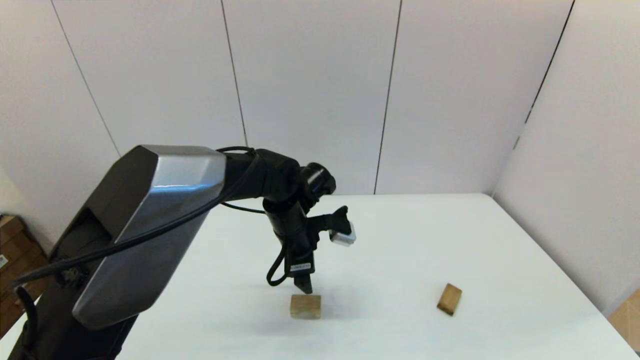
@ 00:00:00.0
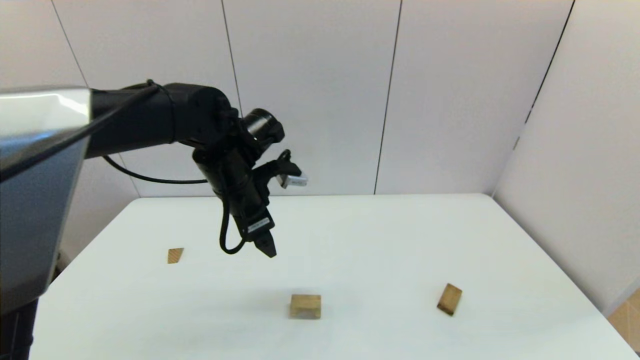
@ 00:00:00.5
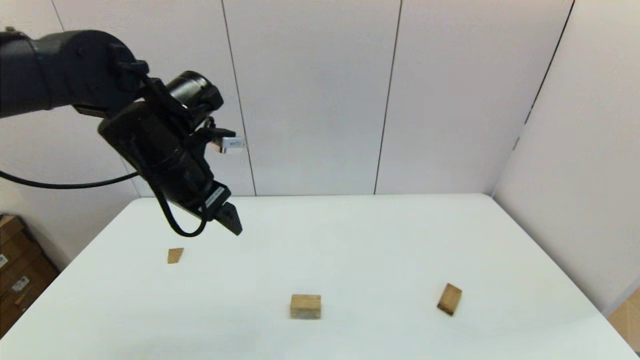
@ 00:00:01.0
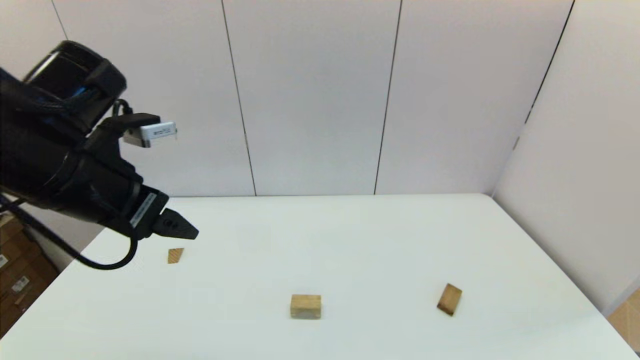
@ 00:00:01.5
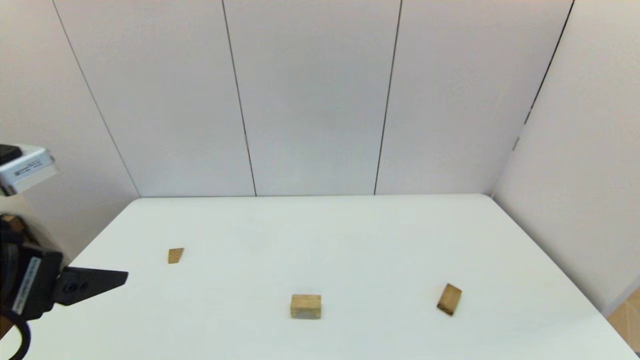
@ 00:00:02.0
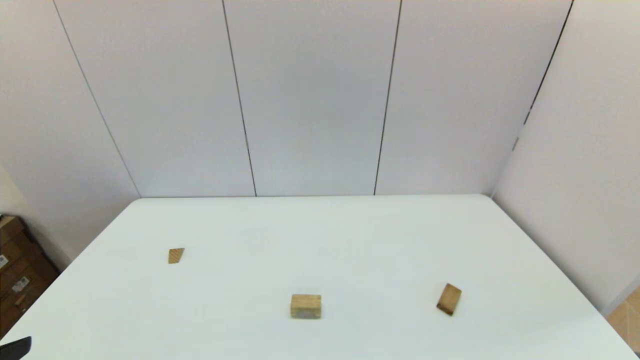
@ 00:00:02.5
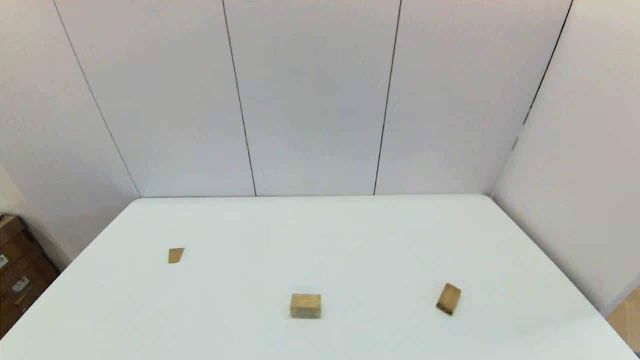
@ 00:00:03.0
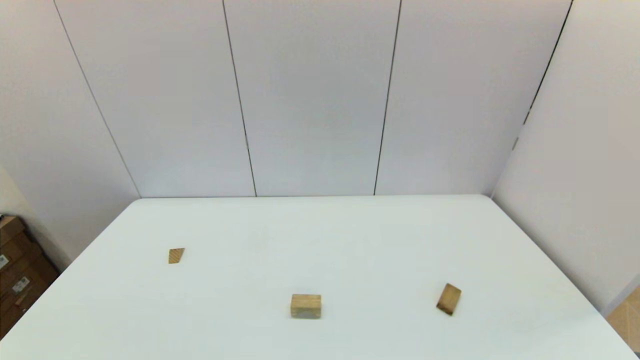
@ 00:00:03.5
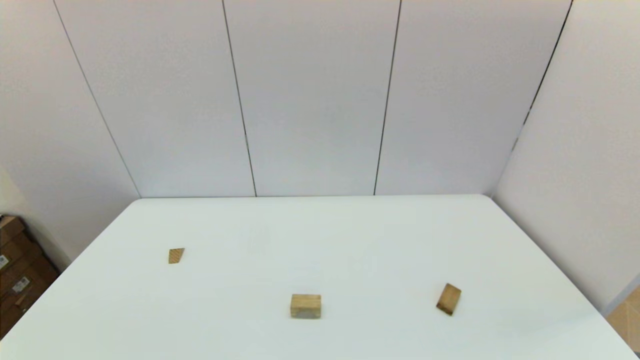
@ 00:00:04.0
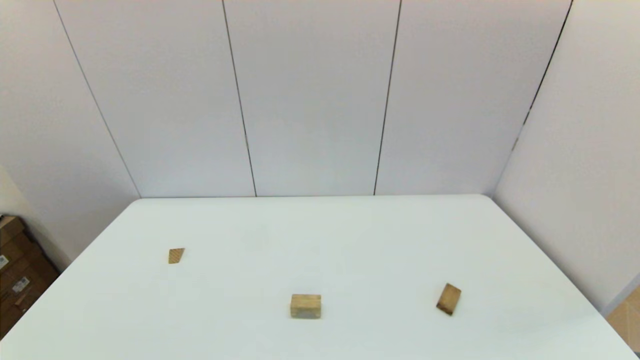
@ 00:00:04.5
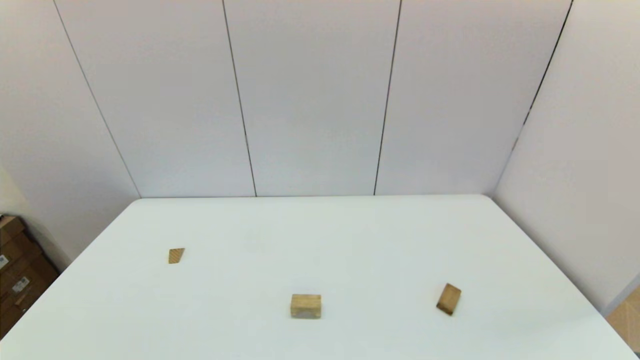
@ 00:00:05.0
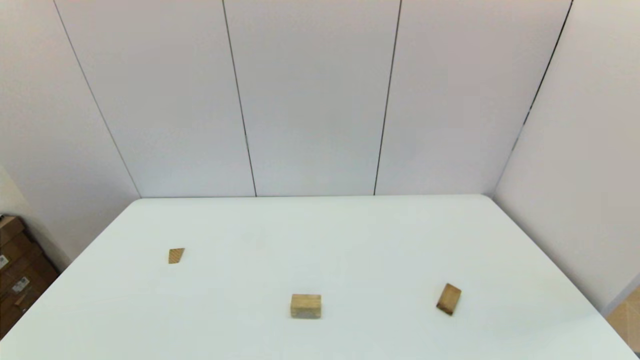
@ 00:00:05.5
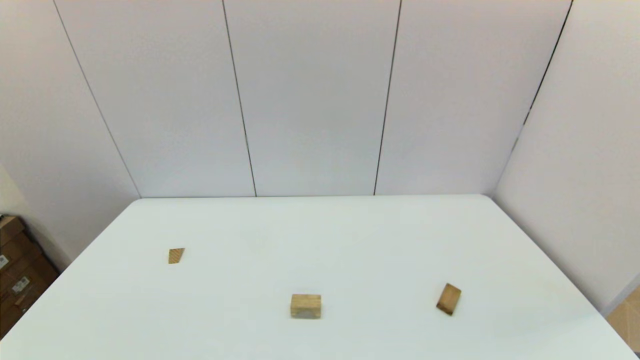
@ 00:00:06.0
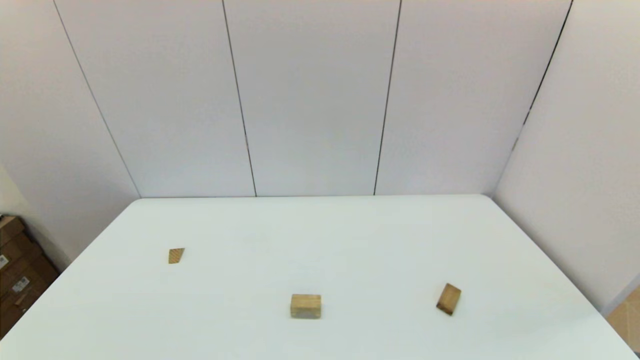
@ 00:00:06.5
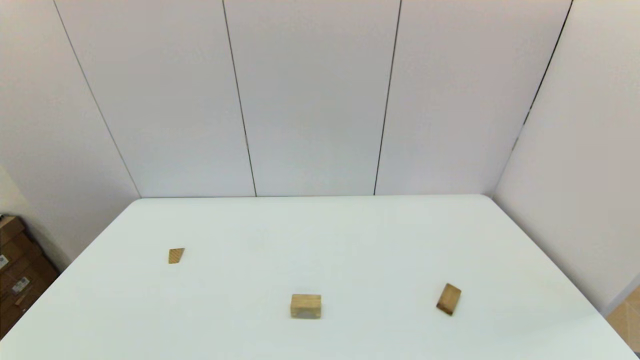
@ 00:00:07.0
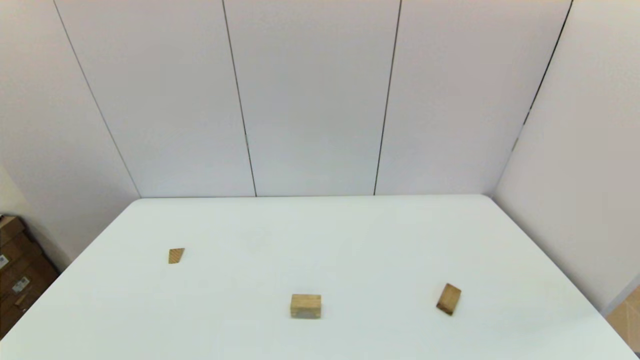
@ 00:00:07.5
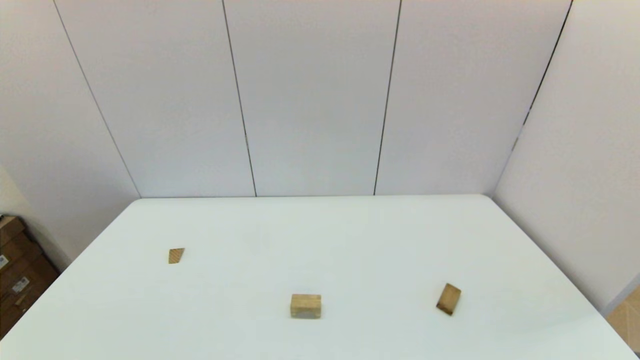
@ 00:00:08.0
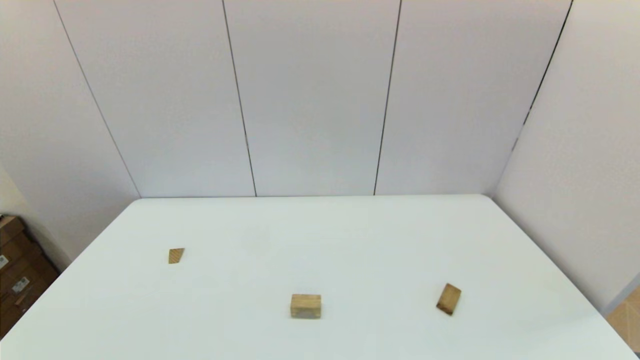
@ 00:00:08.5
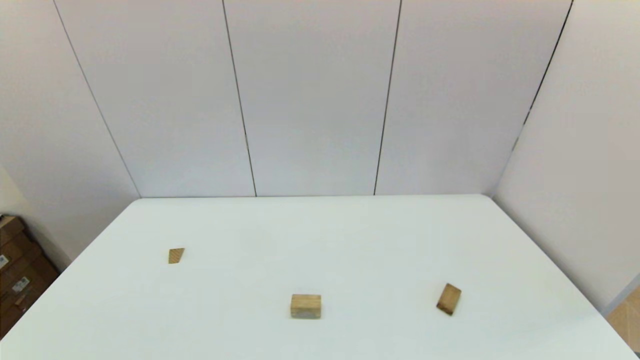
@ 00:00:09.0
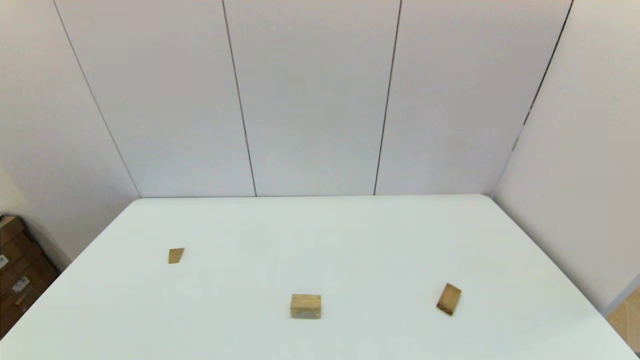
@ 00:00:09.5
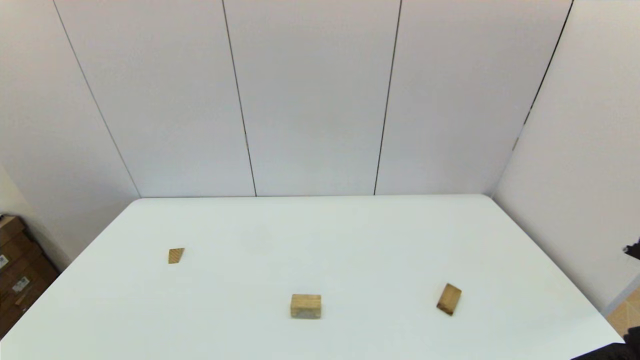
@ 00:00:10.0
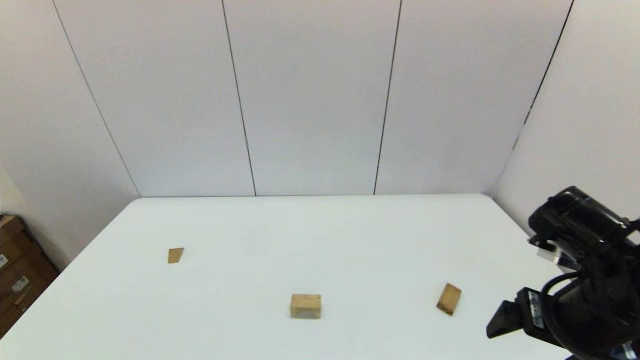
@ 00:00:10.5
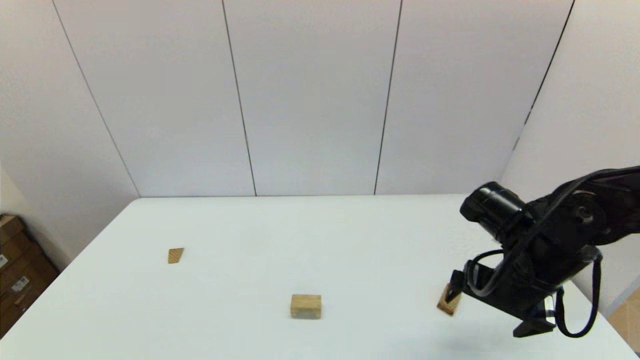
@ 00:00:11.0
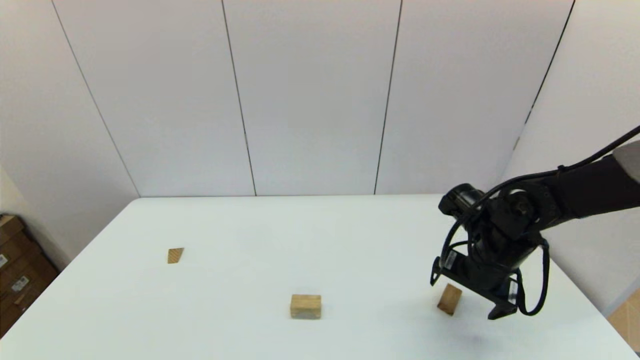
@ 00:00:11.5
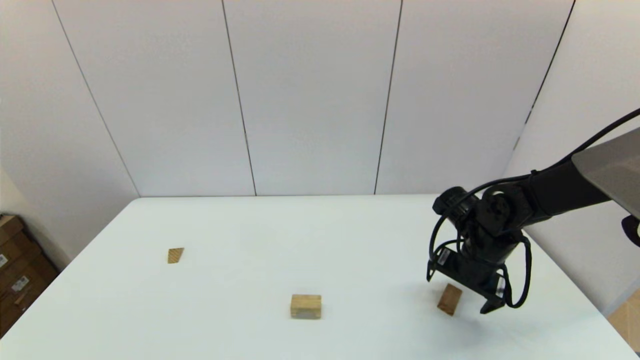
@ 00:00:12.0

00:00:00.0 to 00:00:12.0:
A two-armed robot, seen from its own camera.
Task of the whole recording: place the arched building blocks in the center of the table, set up the rectangular building blocks, and then set up the triangular building blocks.
00:00:00.0 to 00:00:02.0: The left gripper goes about 35 cm backward, to the left and upward.
00:00:02.0 to 00:00:04.0: The left gripper heads backward and downward, covering some 20 cm.
00:00:10.0 to 00:00:12.0: The right gripper travels forward and downward by about 25 cm.

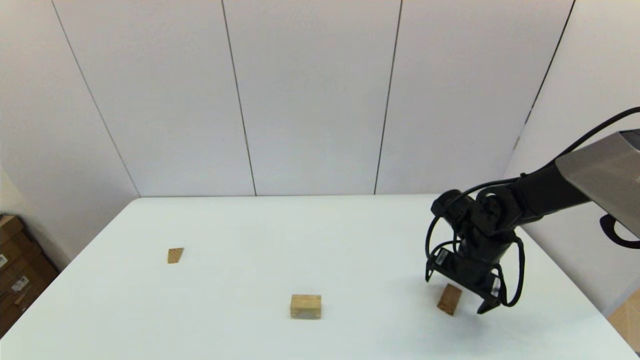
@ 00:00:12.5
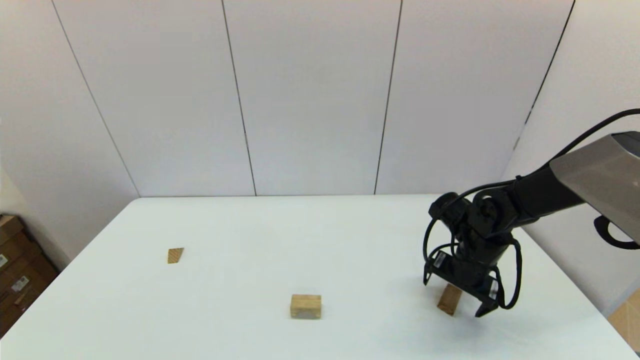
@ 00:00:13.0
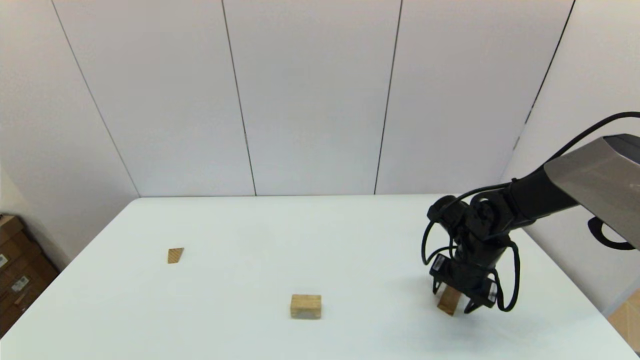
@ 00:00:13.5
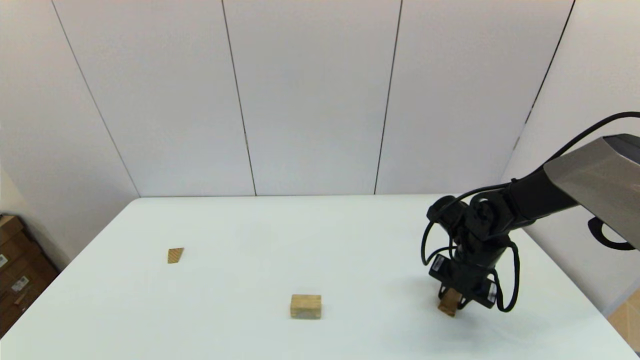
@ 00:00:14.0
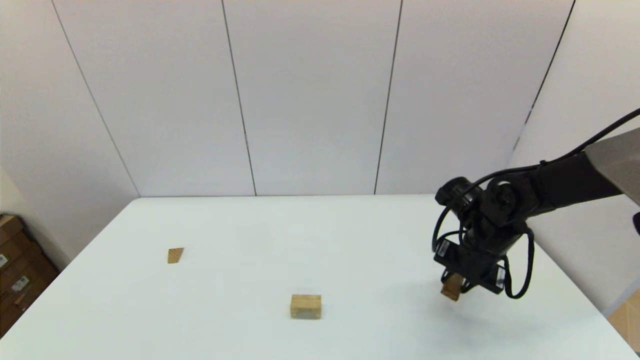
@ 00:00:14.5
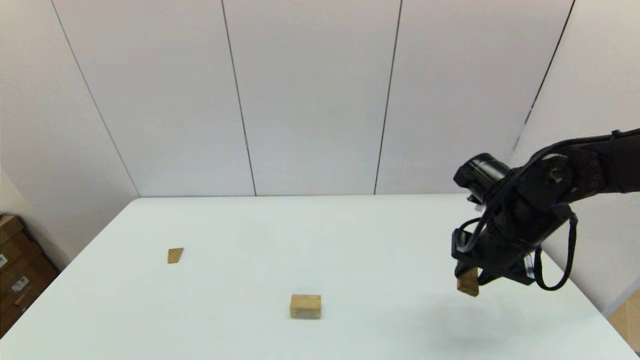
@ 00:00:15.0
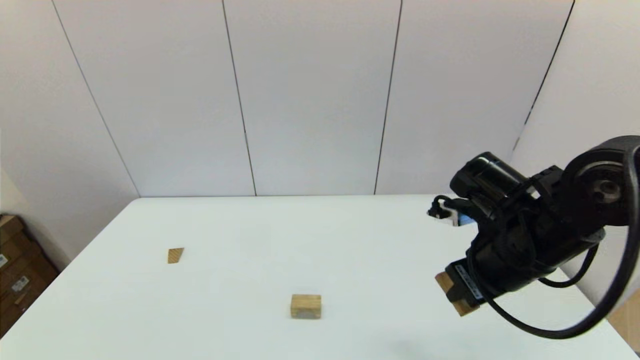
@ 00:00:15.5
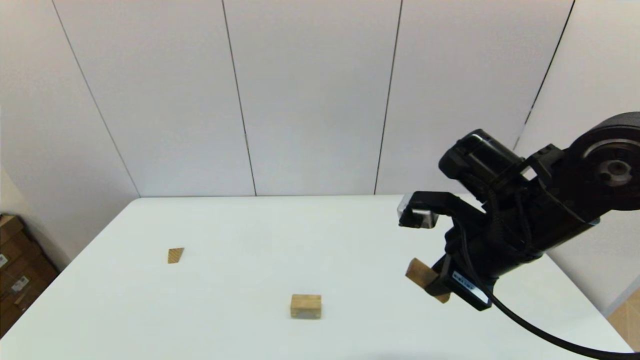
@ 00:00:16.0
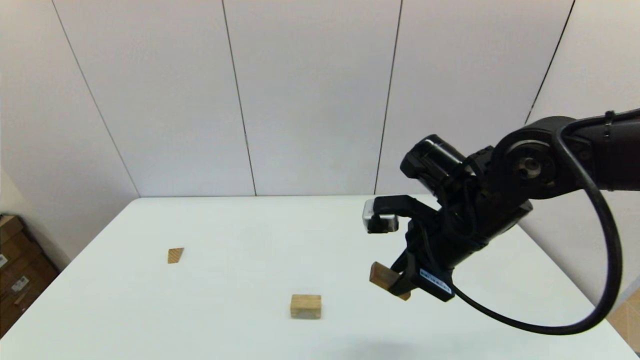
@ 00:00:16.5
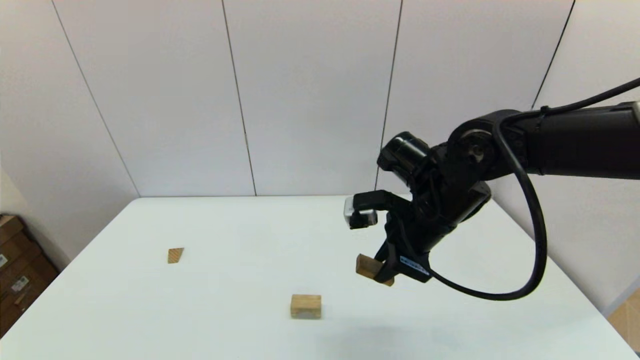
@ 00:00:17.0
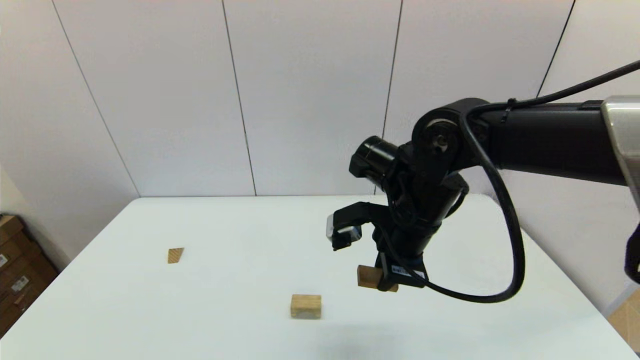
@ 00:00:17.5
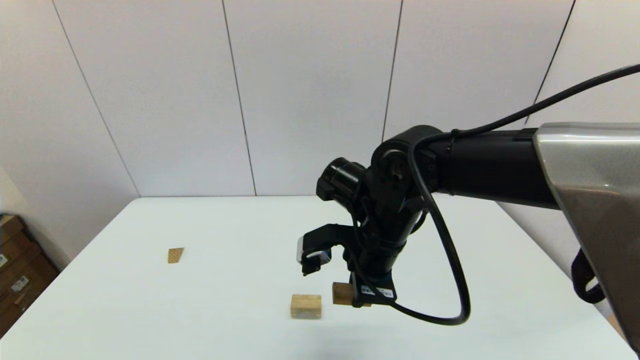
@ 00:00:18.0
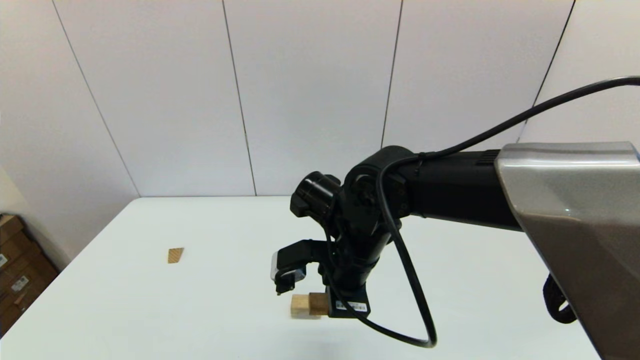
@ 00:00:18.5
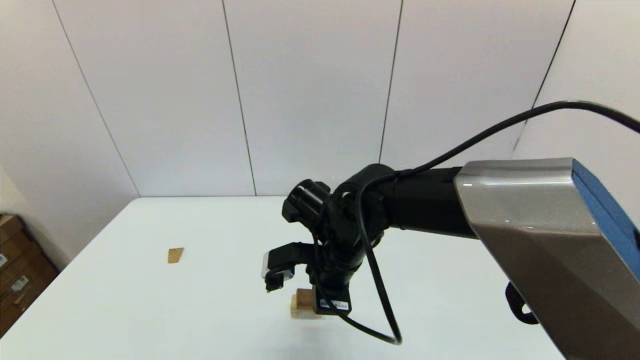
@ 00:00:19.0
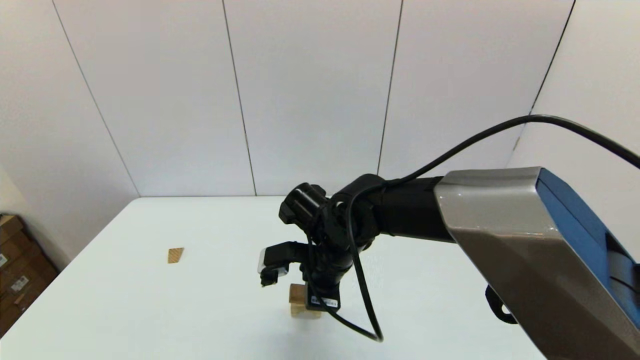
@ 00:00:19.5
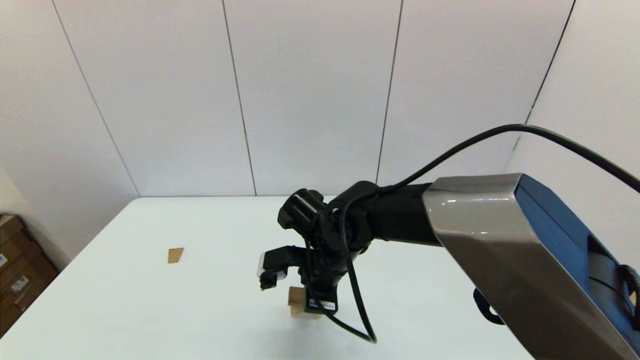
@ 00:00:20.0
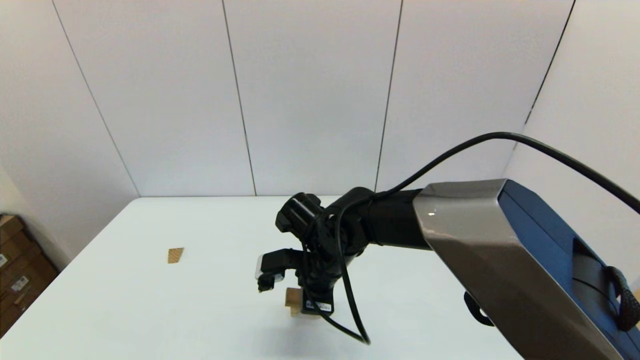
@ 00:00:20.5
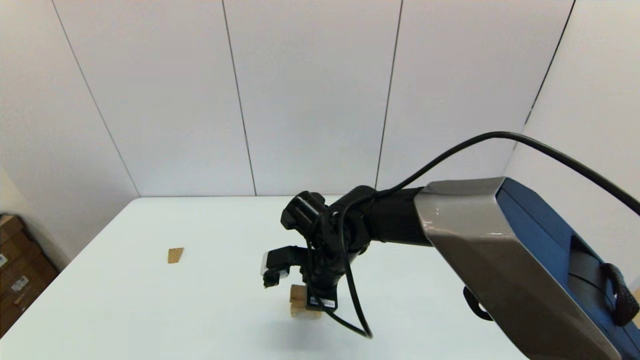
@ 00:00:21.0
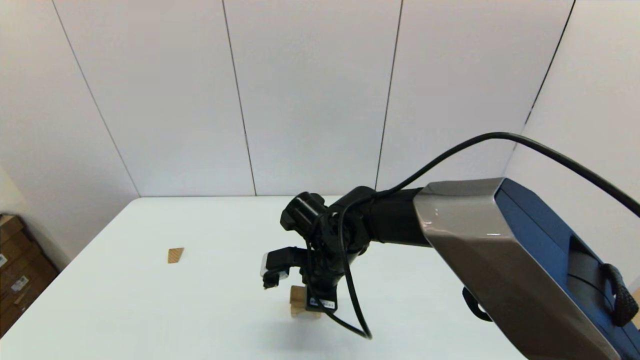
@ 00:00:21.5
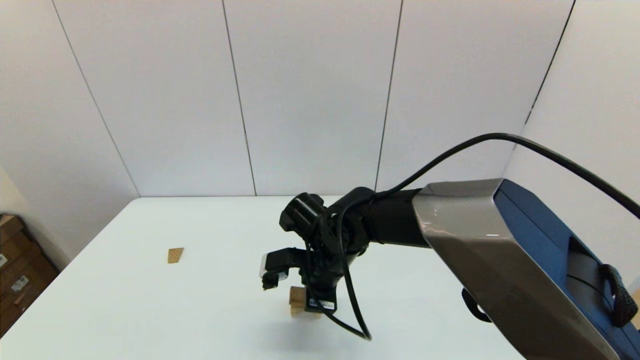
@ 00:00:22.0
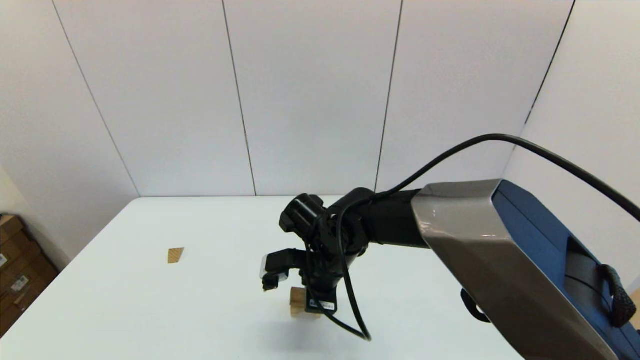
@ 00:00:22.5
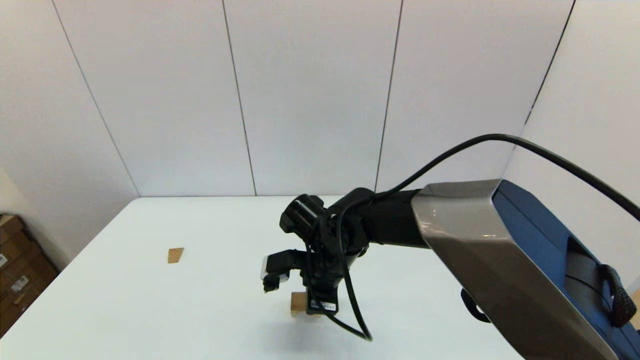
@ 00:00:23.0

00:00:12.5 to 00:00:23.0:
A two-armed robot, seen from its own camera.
Task of the whole recording: place the arched building blocks in the center of the table, set up the rectangular building blocks, and then set up the triangular building blocks.
00:00:12.5 to 00:00:14.5: The right gripper closes its fingers.
00:00:14.5 to 00:00:16.5: The right gripper is displaced to the left, upward and backward by some 15 cm.
00:00:16.5 to 00:00:19.0: The right gripper shifts about 15 cm to the left and downward.
00:00:19.0 to 00:00:21.0: The grippers stay close to where they were, moving slightly.
00:00:21.0 to 00:00:23.0: Neither gripper changes place.
